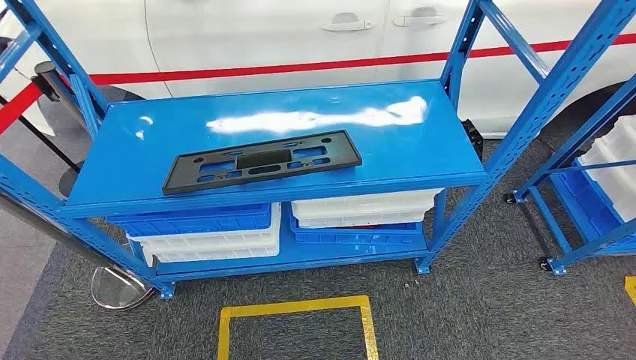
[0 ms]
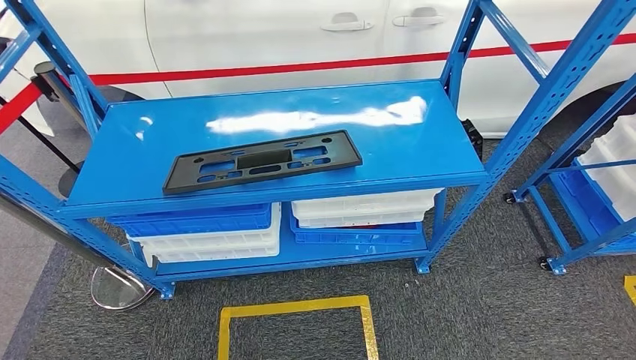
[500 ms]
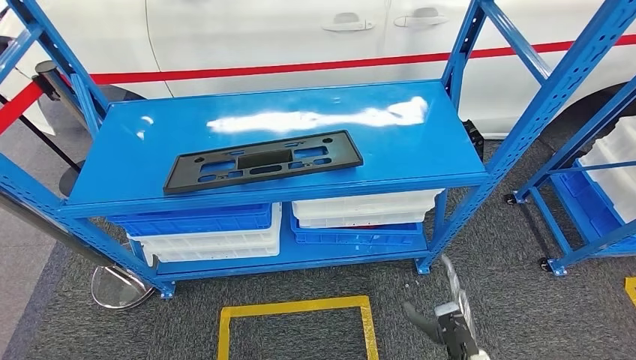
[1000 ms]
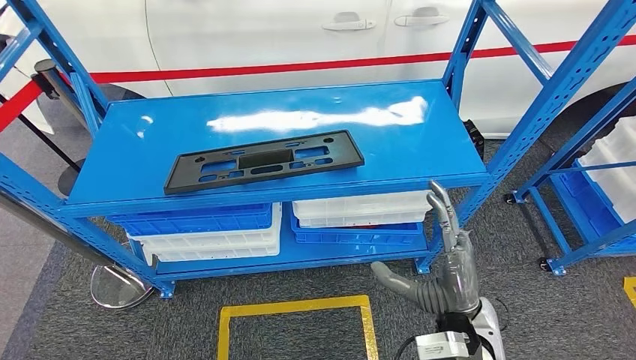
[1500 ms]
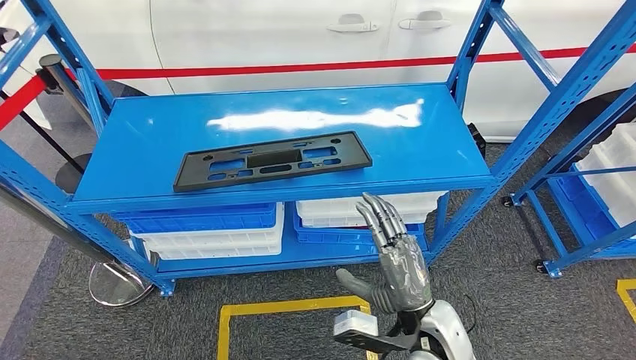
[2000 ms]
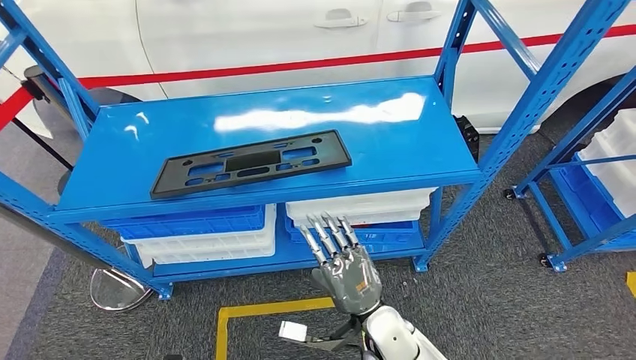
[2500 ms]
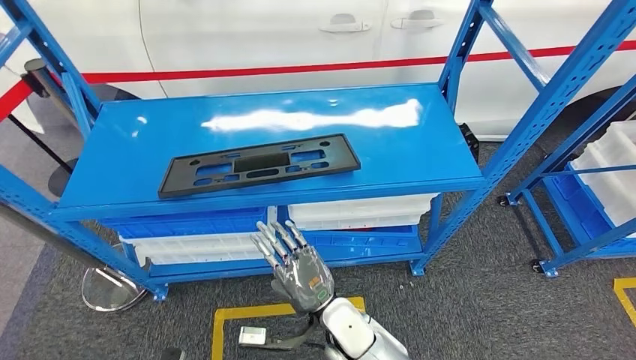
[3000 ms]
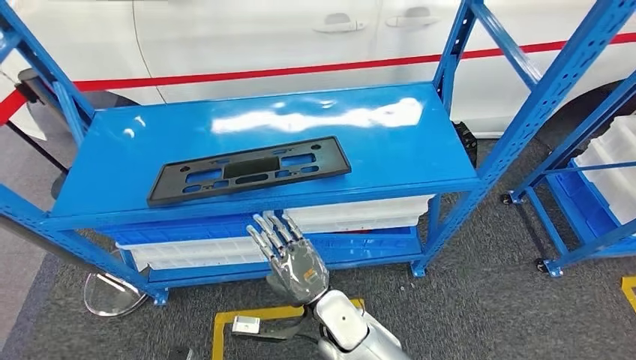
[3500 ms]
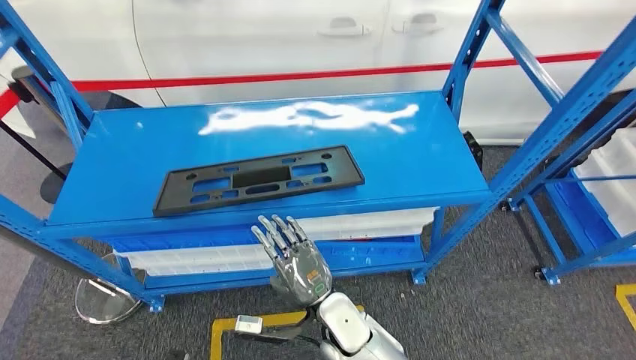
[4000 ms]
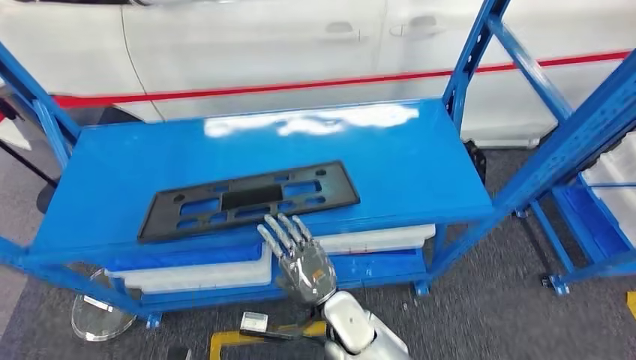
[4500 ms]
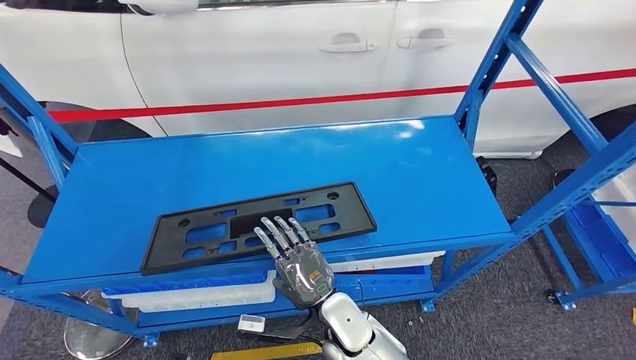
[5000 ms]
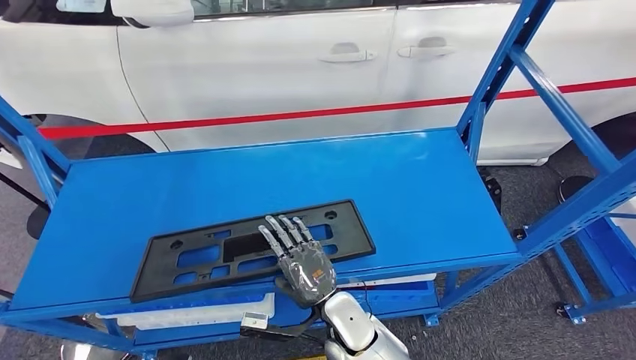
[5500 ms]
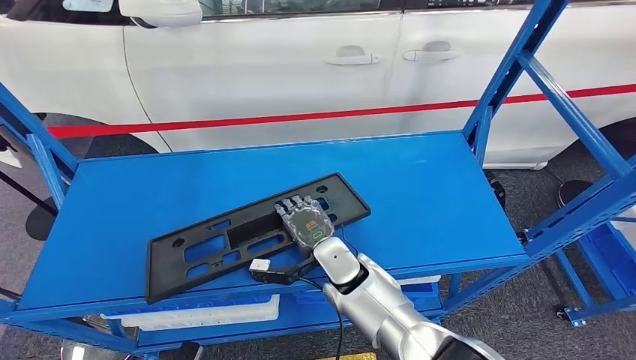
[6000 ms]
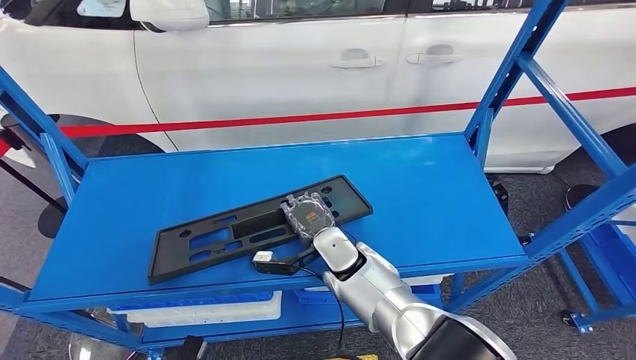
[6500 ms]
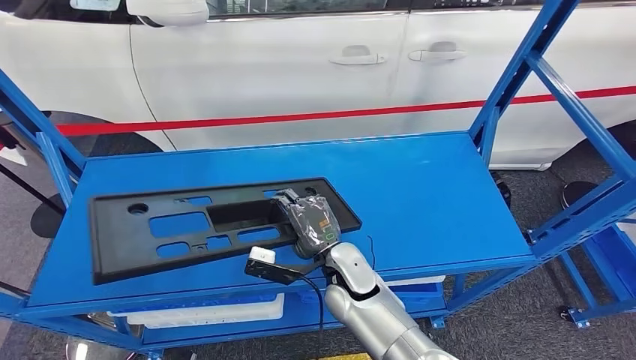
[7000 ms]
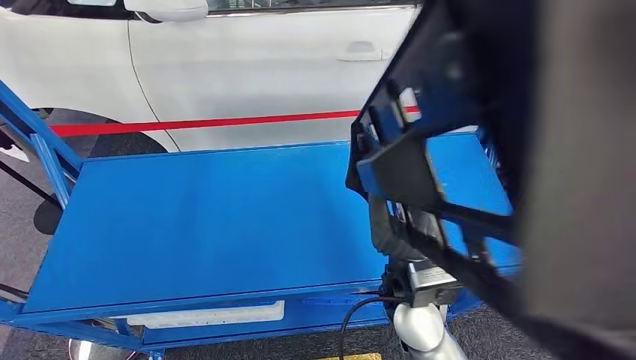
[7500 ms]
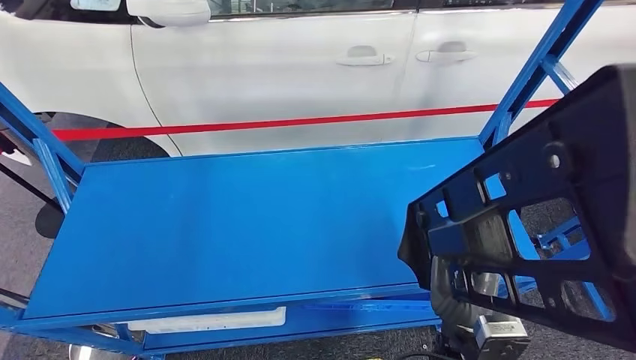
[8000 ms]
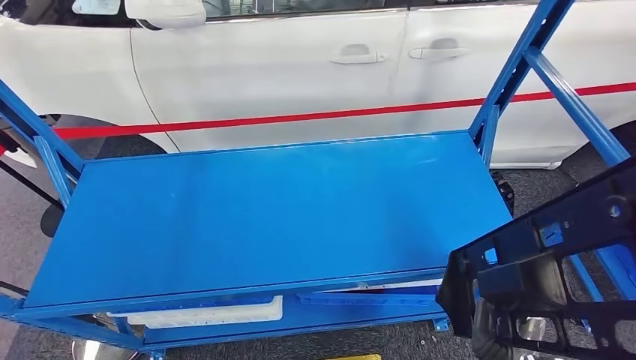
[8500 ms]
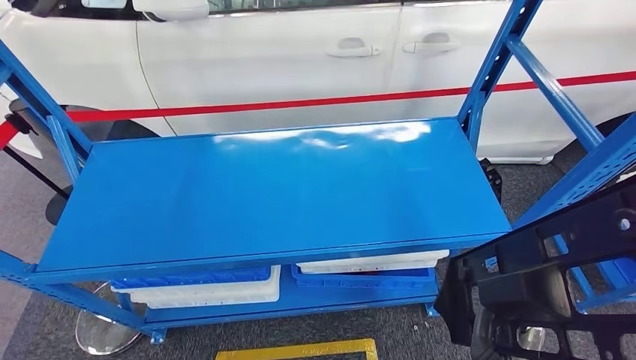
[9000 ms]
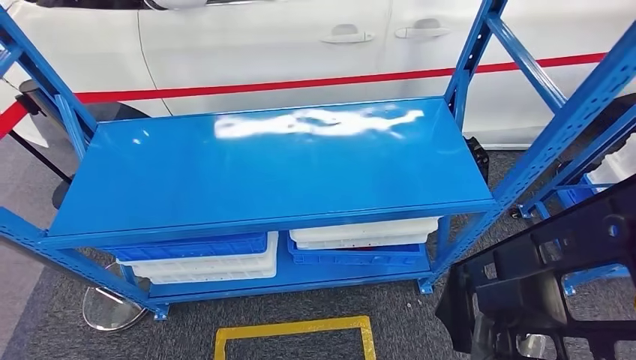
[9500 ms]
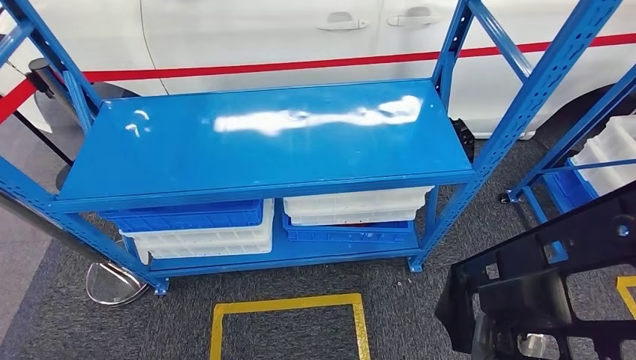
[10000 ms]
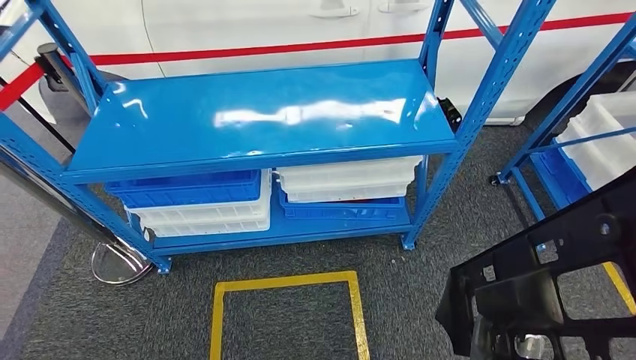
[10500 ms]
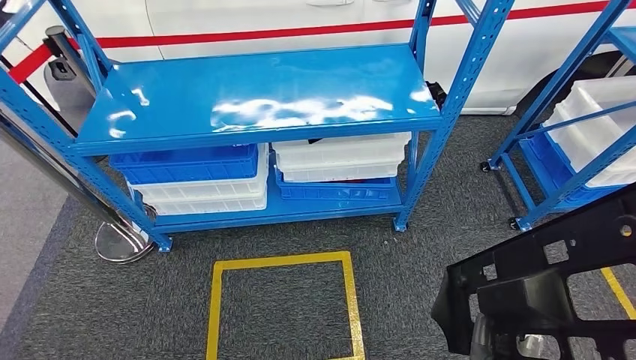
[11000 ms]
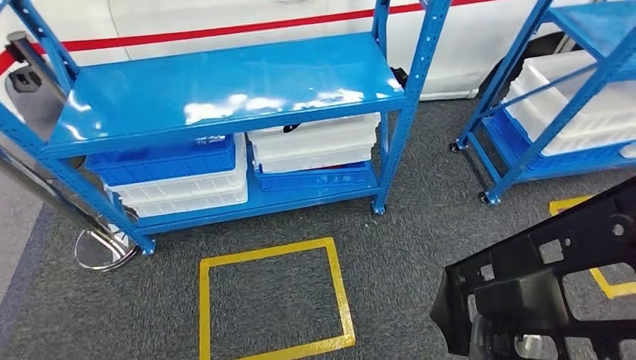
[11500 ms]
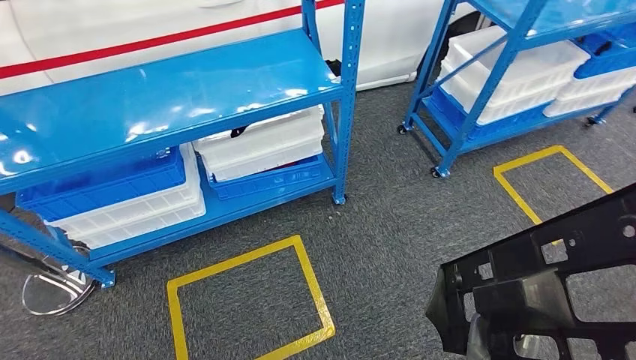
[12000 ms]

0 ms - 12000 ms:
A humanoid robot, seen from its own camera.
Step, 0 ms - 8500 ms: Pick up the large material from the shelf.

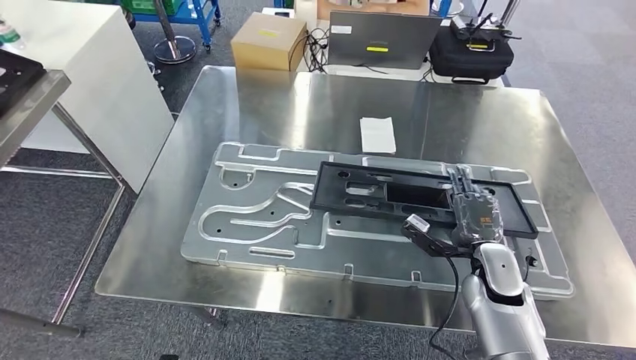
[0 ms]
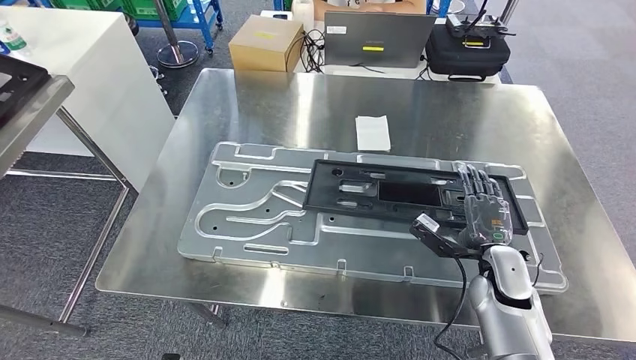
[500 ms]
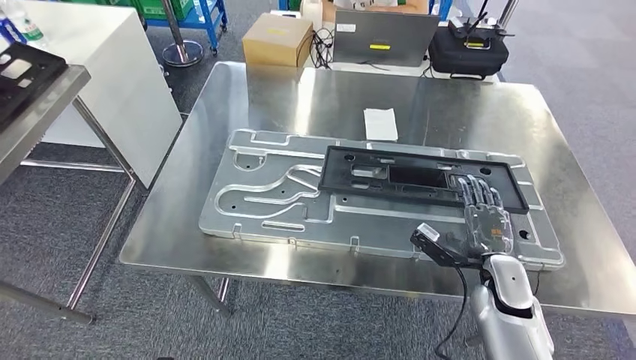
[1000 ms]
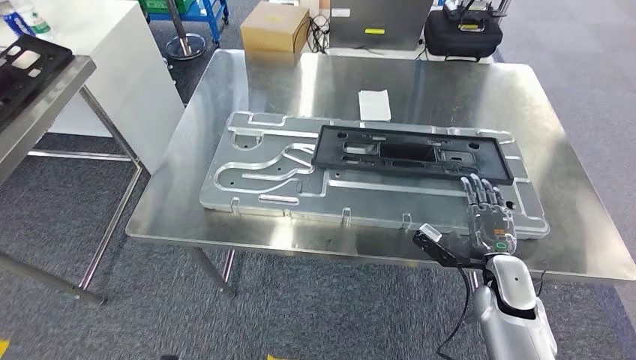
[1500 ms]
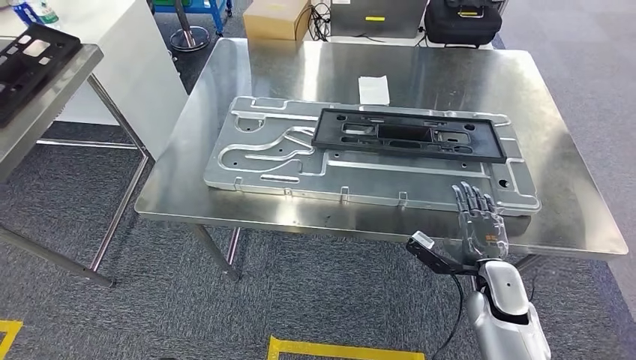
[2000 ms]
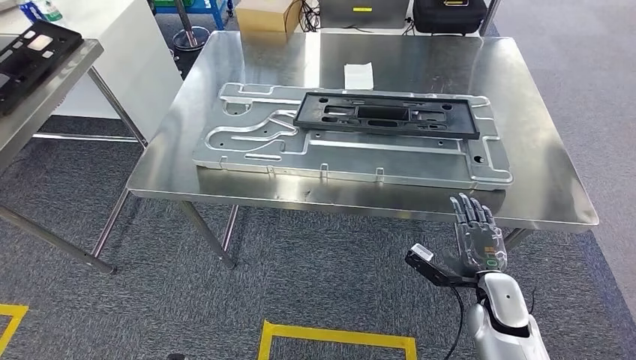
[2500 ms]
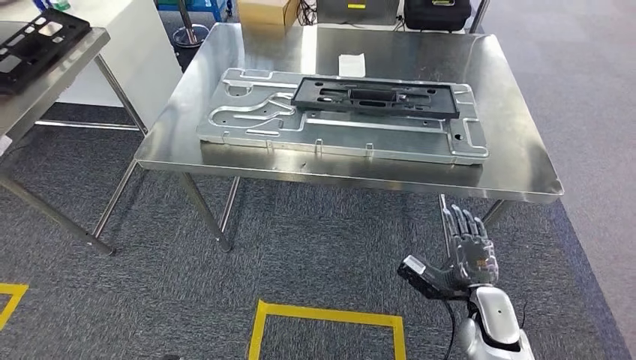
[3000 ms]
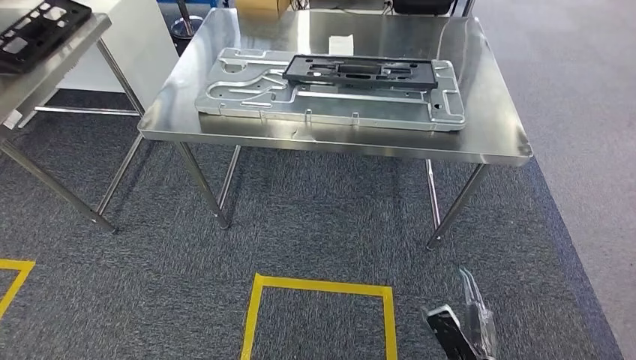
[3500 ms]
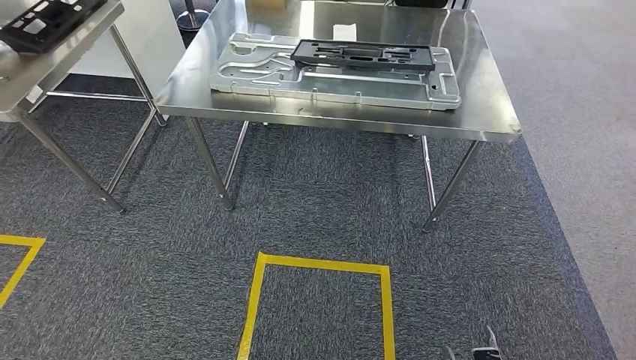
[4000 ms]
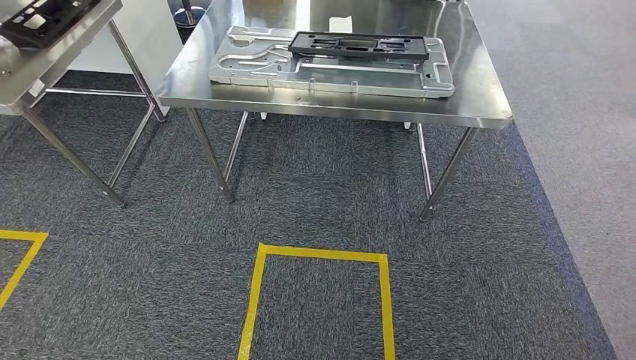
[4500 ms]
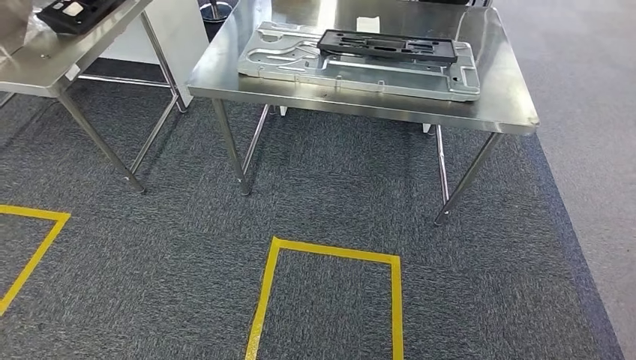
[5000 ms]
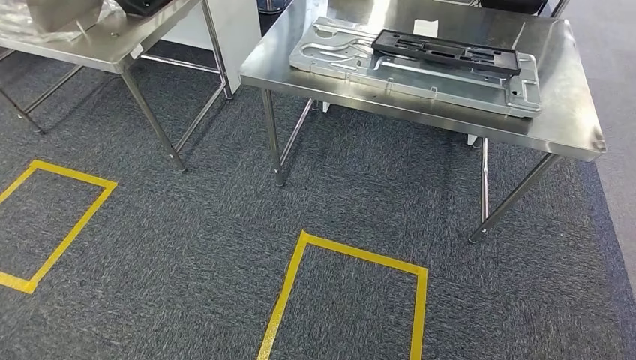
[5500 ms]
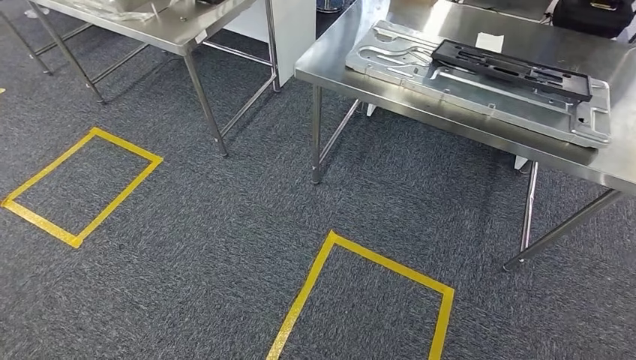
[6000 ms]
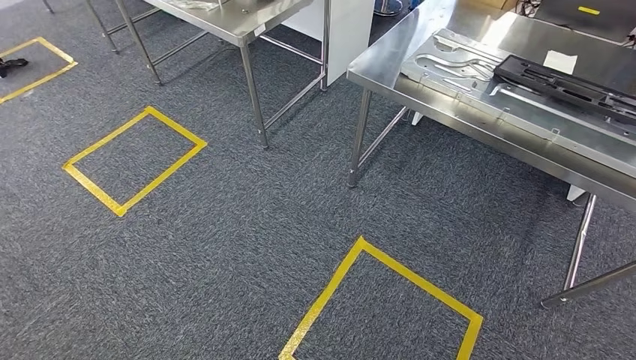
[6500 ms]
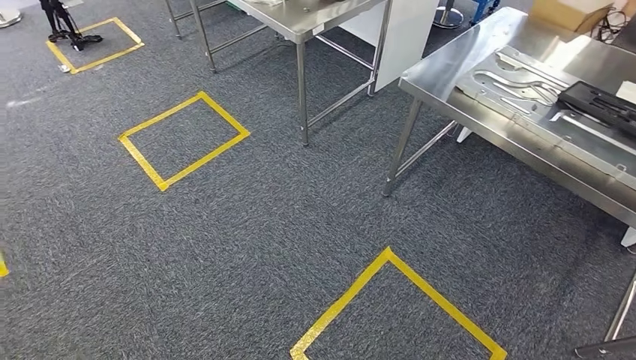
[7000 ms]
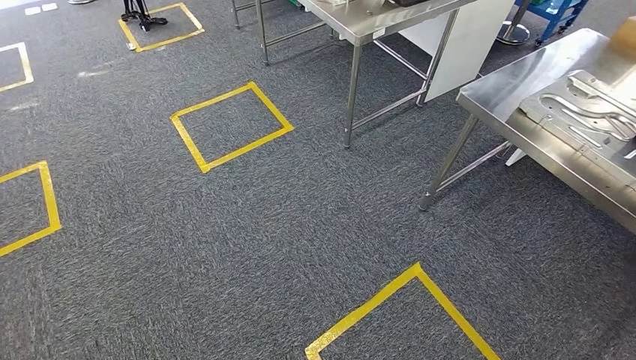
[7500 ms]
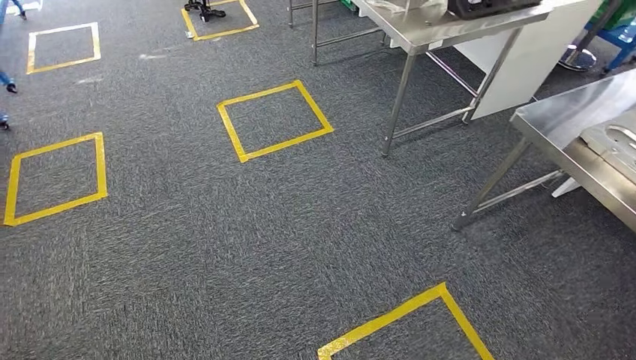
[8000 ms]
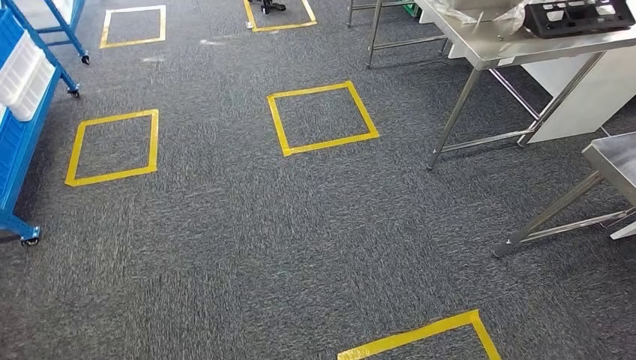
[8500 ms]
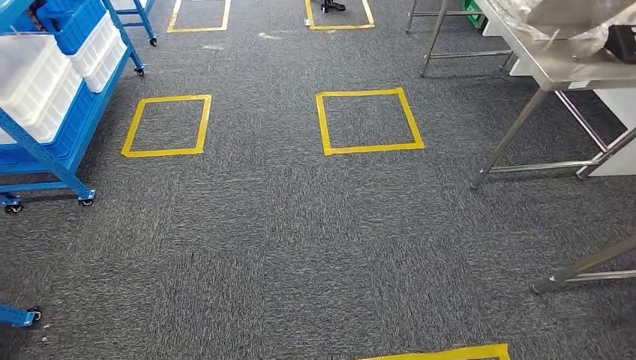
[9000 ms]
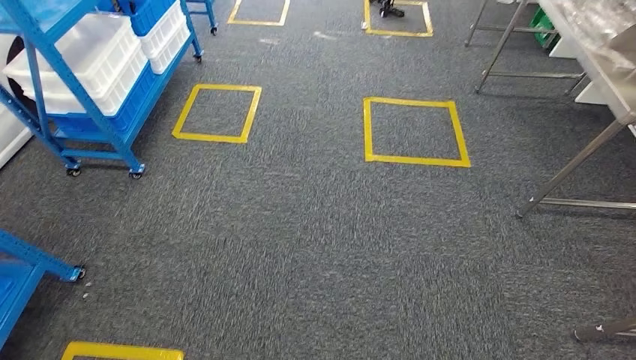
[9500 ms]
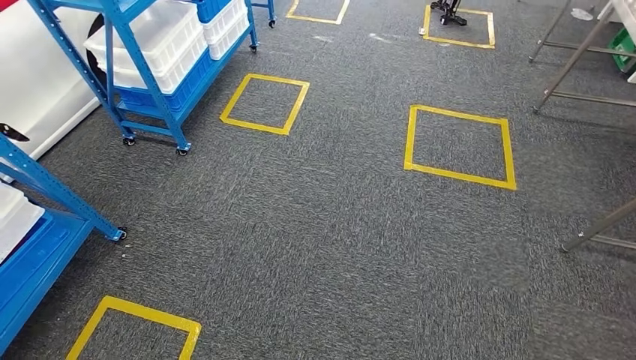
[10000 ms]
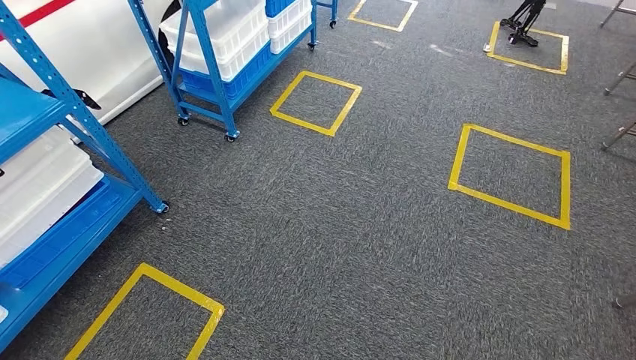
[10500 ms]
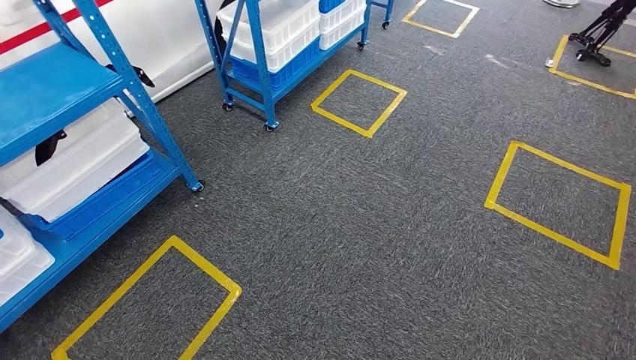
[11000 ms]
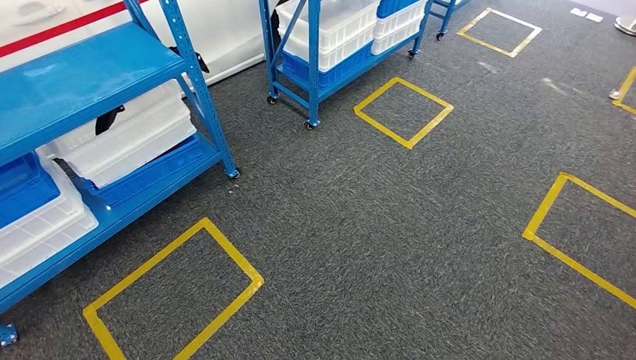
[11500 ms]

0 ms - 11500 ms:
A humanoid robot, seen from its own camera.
Step, 500 ms - 3500 ms: Insert the large material into the corresponding slot on the workbench.
